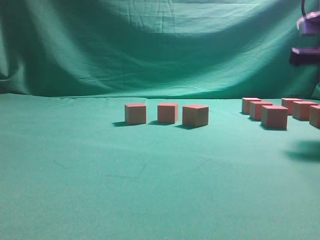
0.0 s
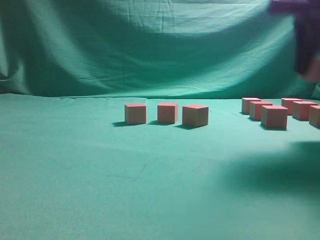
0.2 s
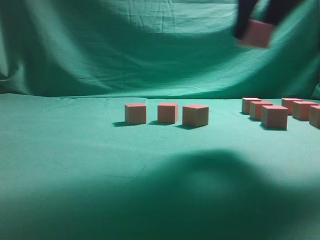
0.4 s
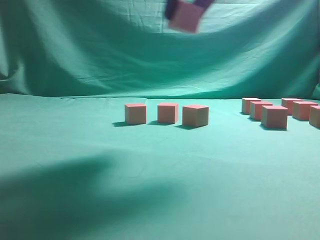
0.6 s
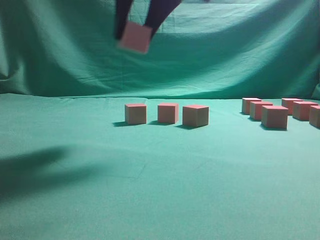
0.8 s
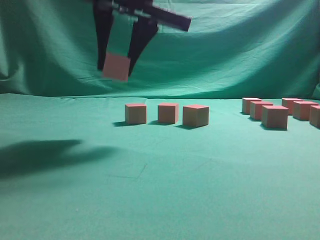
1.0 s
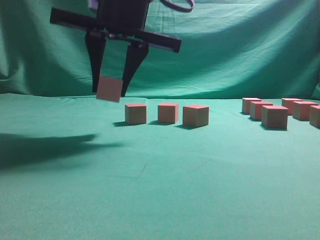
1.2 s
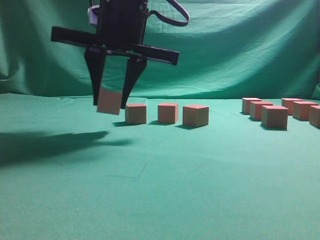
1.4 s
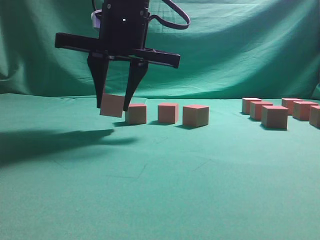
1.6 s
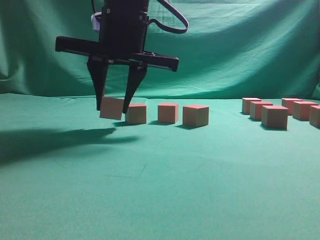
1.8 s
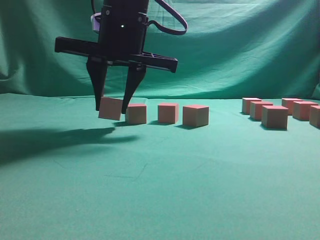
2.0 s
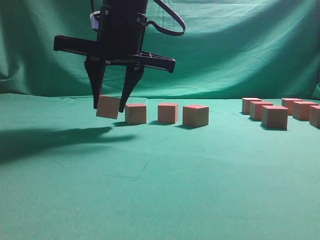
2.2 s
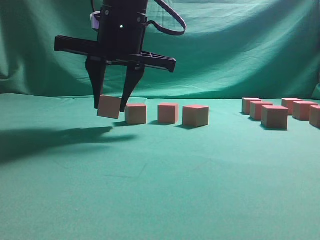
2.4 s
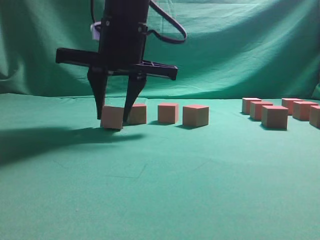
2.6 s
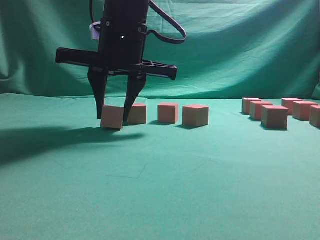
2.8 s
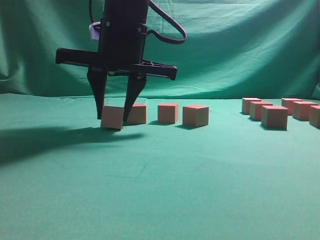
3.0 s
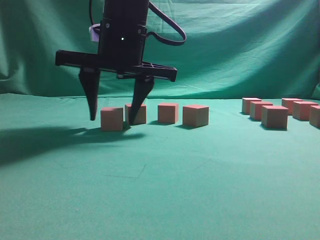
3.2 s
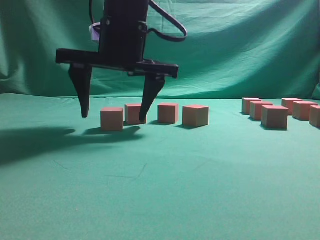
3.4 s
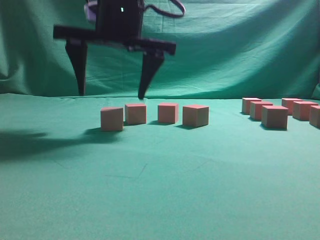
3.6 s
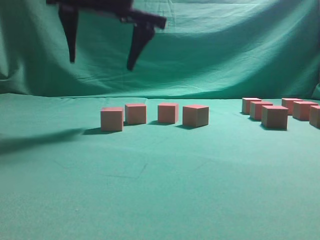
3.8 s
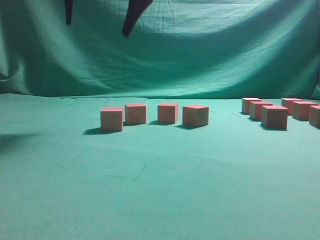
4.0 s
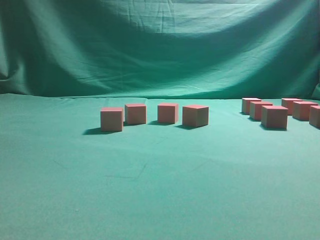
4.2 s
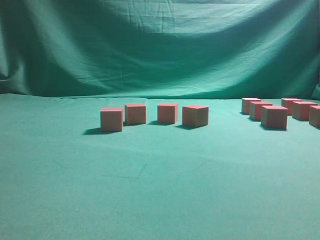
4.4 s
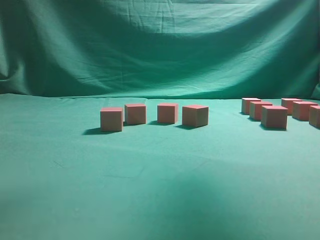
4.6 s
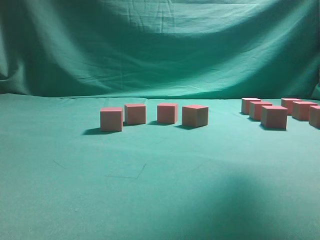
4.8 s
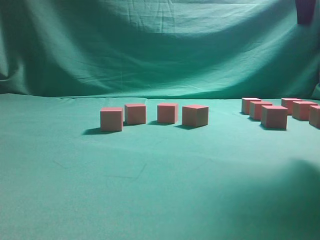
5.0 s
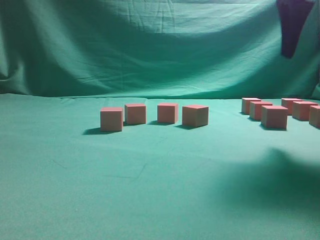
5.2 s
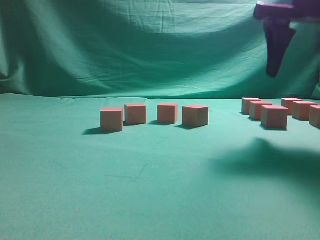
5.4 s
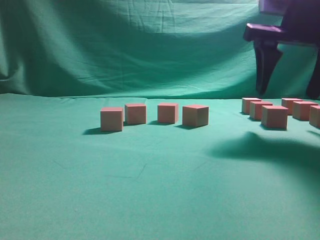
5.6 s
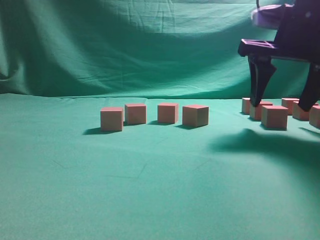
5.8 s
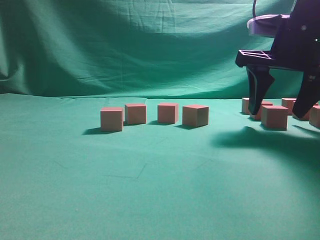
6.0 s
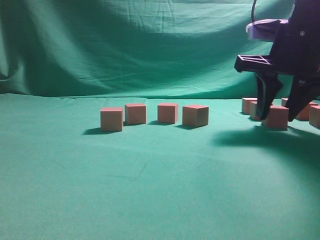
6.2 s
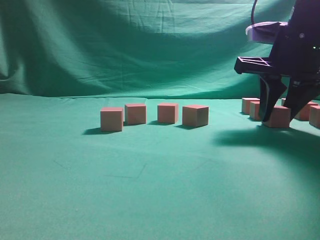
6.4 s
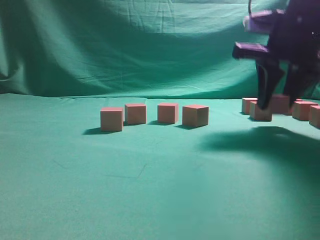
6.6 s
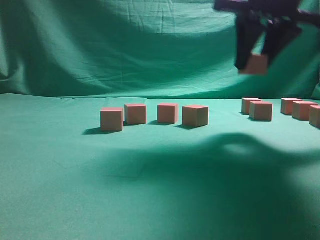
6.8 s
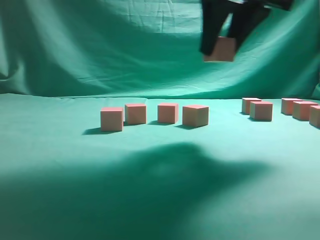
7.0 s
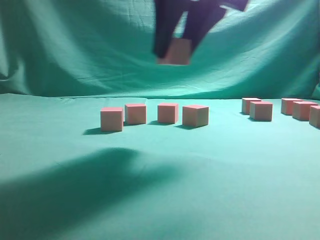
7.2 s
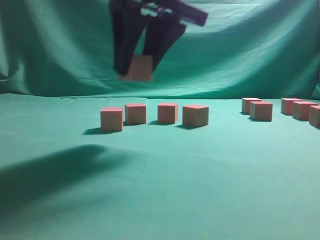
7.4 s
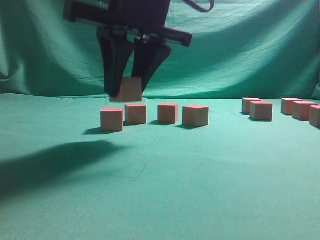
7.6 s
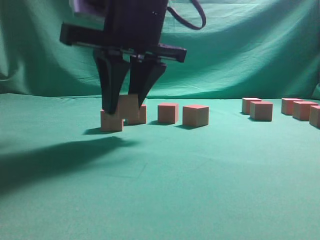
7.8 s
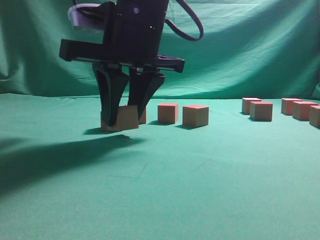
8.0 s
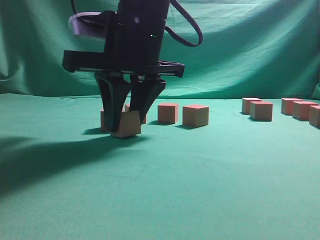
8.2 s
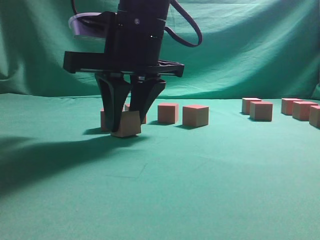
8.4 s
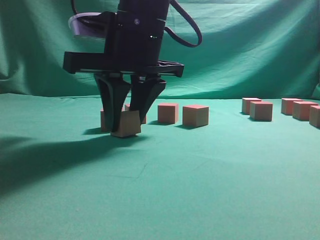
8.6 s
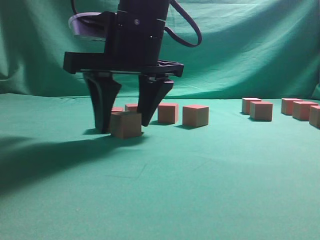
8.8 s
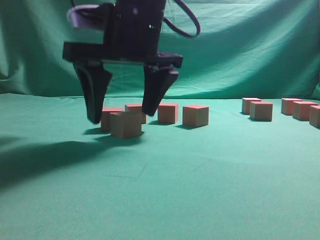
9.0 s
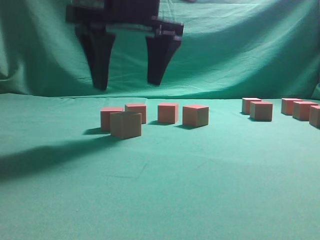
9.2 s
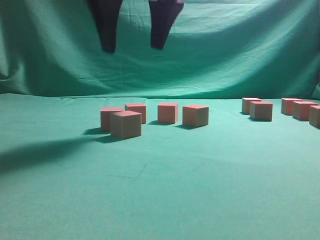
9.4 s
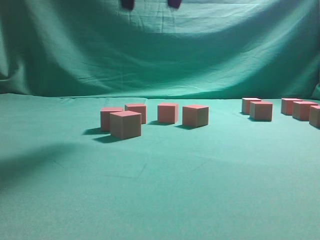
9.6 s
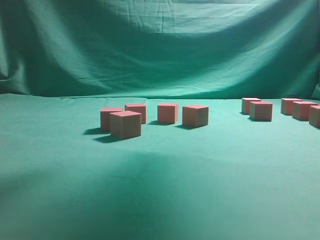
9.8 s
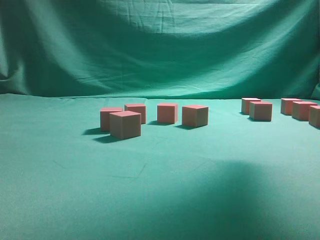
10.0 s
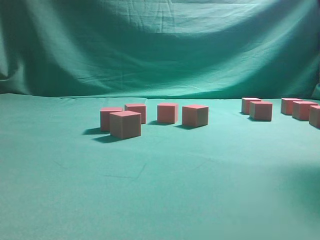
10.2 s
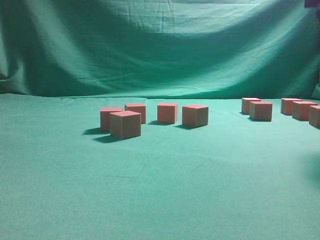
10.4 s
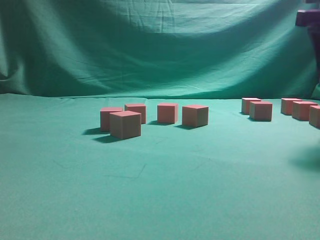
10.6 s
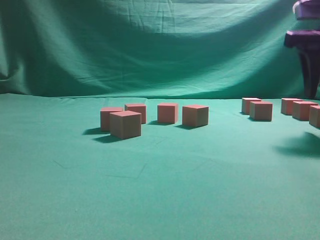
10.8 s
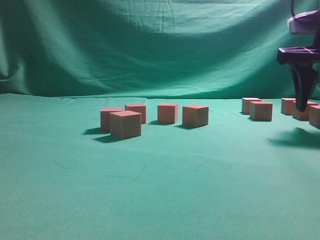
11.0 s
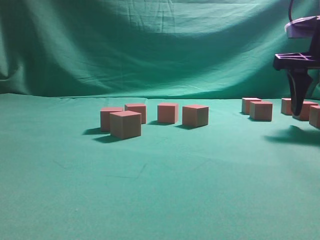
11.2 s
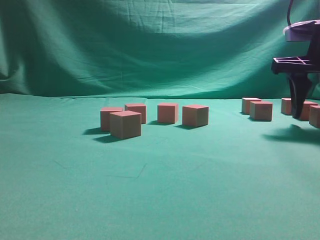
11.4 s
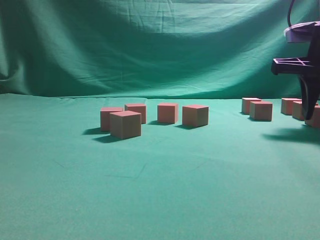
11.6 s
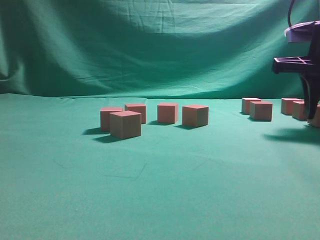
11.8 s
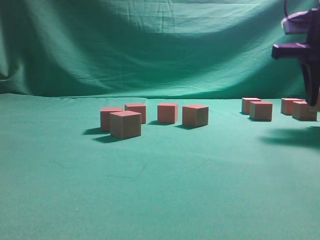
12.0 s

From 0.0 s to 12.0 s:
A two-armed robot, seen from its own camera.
Task of the whole recording: pick up the multiple cubes in two columns one by one and place them in another position on the table.
Step, from 0.6 s to 3.8 s: Place the block at the correct position to assemble the letter S.
Step, from 4.0 s to 7.0 s: Pick up the block on the table.
Step, from 7.2 s to 9.4 s: Place the block at the correct position to assemble the letter S.
From 0.0 s to 1.6 s: The right gripper moves to the left, about 30 cm.
From 1.6 s to 3.0 s: The grippers make only small movements.
From 3.0 s to 4.4 s: The right gripper heads upward and to the right, covering some 25 cm, and opens its fingers.
From 4.4 s to 6.0 s: The right gripper is displaced downward and to the right by some 25 cm.
From 6.0 s to 7.6 s: The right gripper moves to the left, about 20 cm, and closes.
From 7.6 s to 9.0 s: The right gripper opens.
From 9.0 s to 10.4 s: The right gripper heads to the right, covering about 30 cm.
From 10.4 s to 12.0 s: The right gripper is displaced downward by some 5 cm, and closes up.

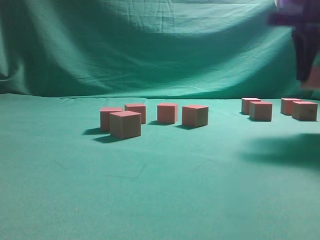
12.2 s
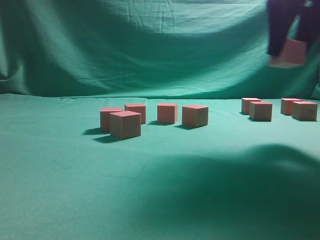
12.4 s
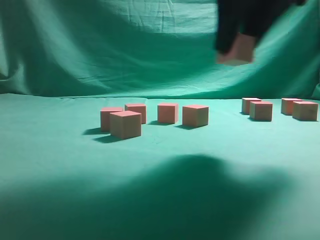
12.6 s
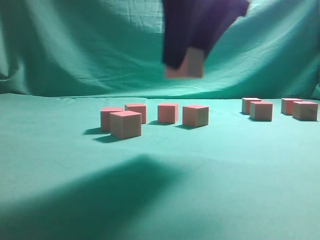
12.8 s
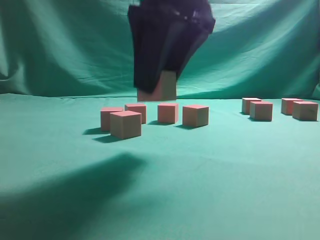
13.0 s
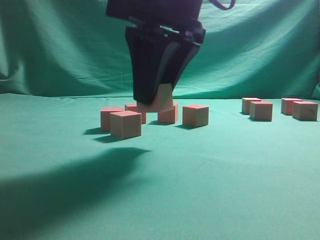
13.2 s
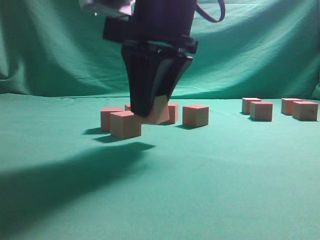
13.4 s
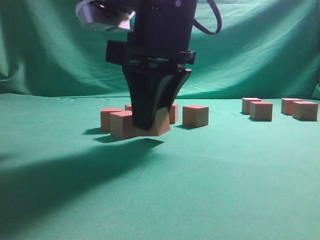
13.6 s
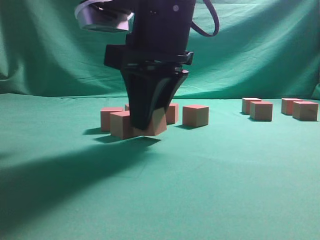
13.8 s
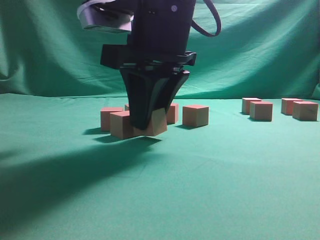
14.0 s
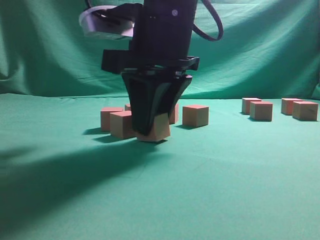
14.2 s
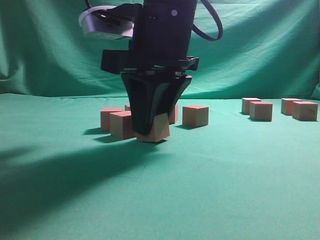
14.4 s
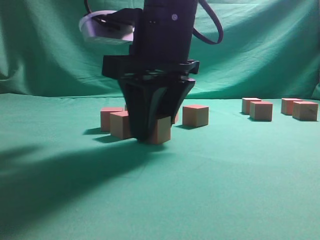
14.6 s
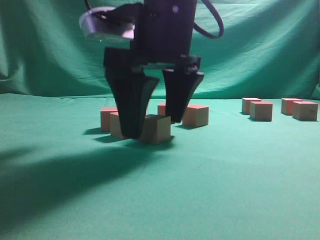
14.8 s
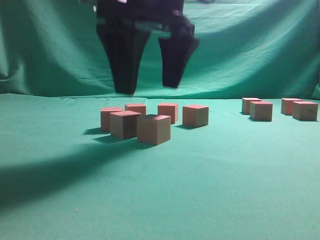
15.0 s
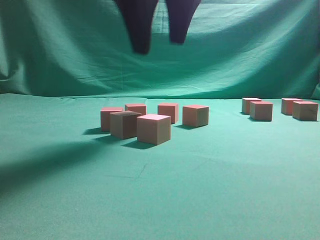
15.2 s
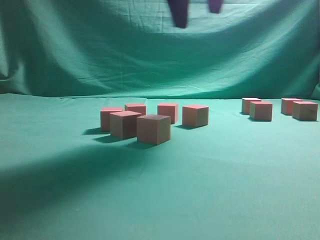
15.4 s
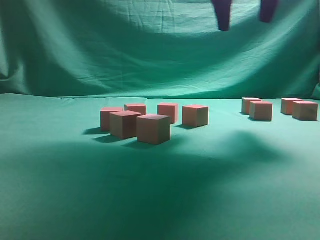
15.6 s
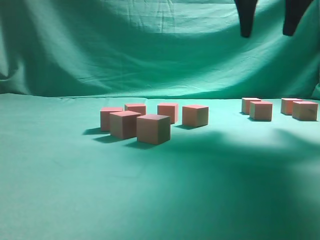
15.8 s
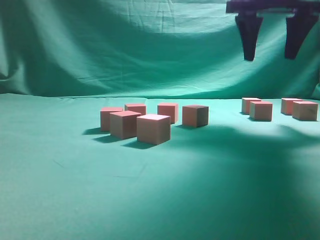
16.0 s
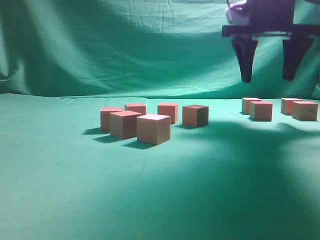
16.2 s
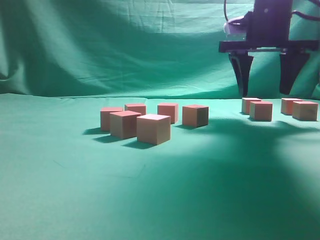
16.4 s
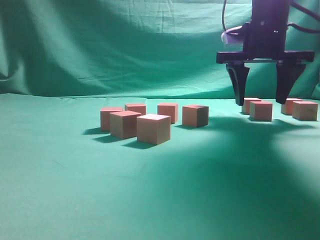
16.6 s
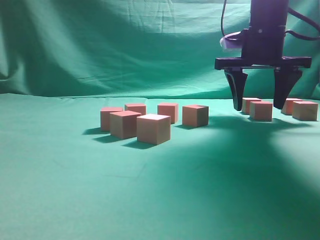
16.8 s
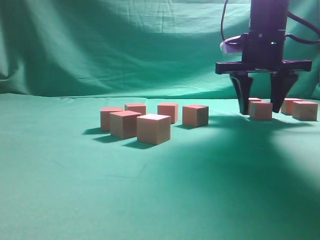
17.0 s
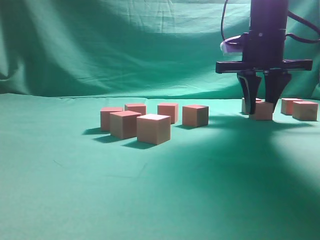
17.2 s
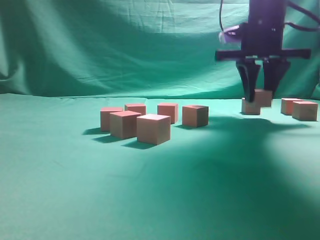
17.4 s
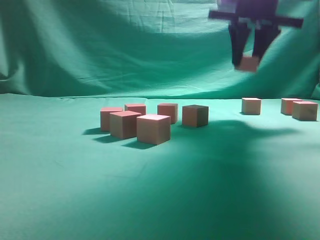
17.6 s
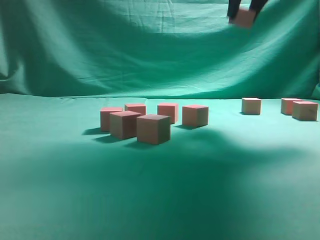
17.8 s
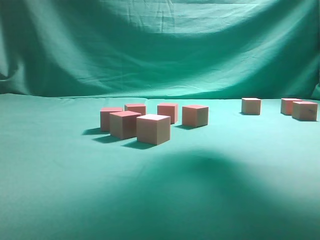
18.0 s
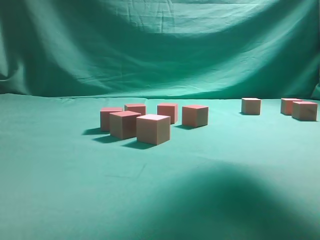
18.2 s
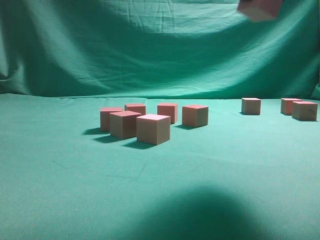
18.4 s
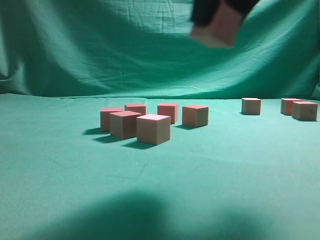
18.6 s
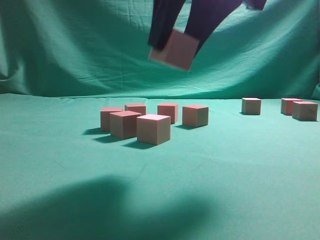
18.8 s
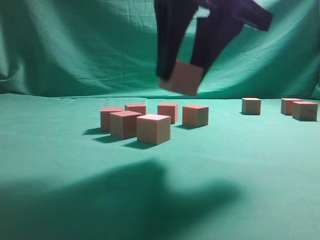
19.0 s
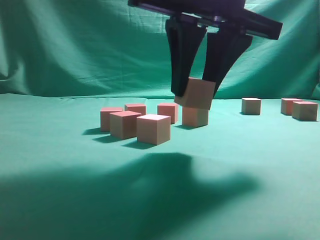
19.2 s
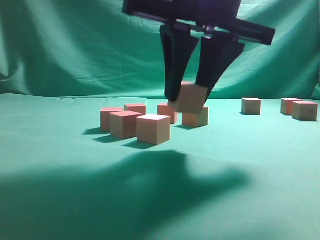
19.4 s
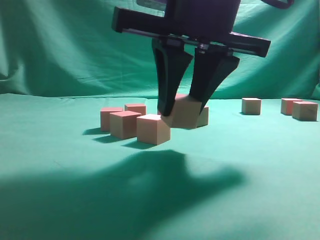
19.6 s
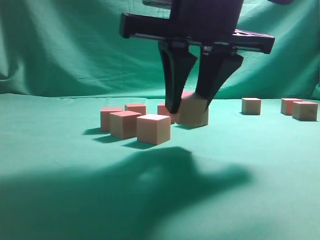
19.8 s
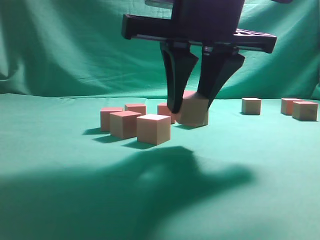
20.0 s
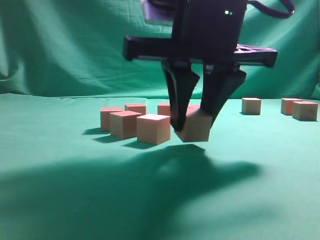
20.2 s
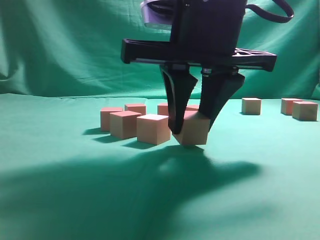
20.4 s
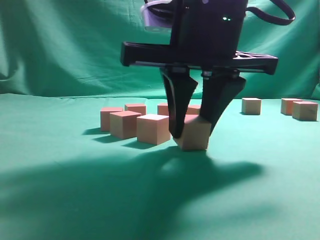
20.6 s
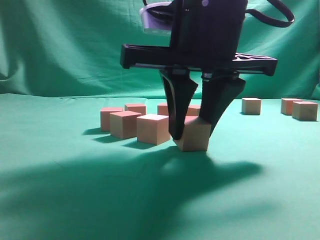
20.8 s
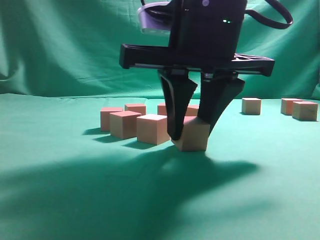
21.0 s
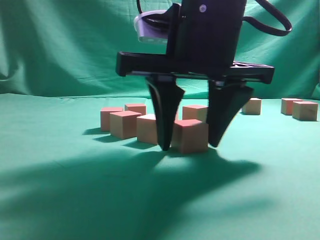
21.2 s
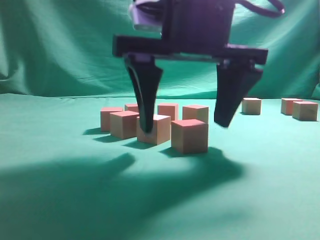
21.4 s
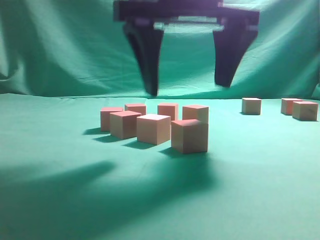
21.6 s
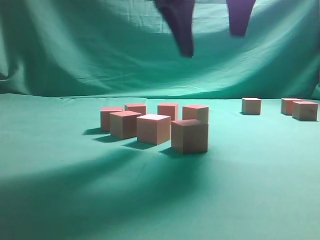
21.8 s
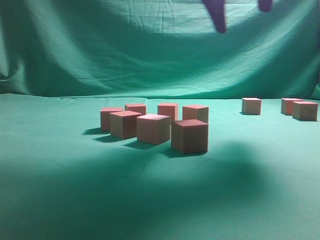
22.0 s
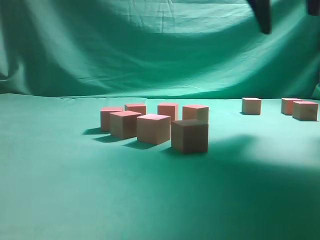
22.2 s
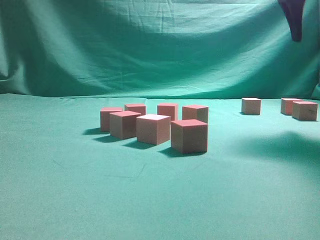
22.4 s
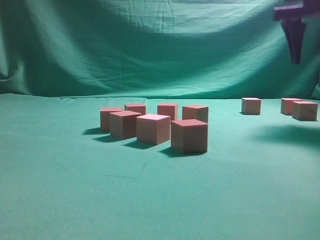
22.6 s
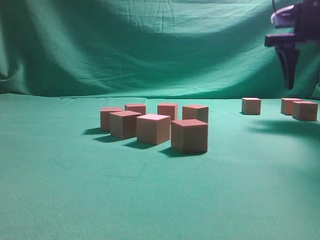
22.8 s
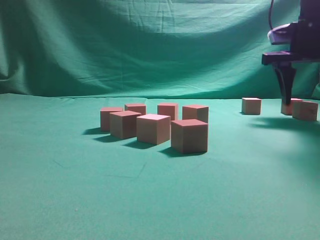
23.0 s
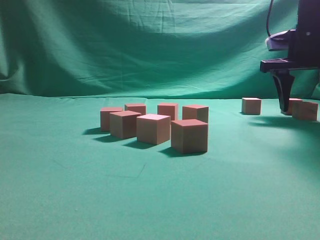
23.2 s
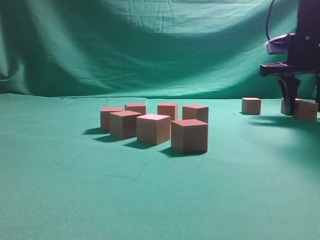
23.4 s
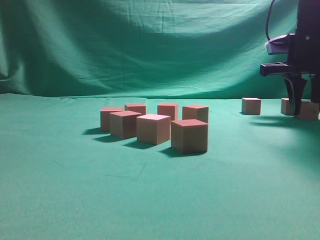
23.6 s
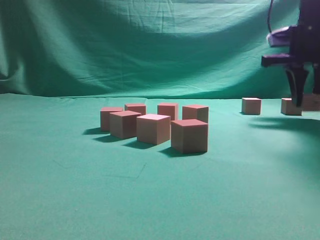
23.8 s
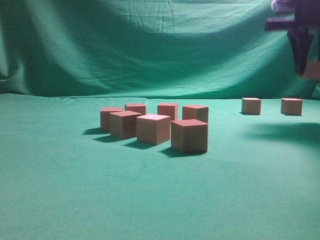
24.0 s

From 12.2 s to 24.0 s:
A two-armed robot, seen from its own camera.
Task of the whole recording: pick up the multiple cubes in two columns one by one and place them in another position on the table.
Step, from 12.6 s to 13.6 s: Place the block at the correct position to assemble the letter S.
Step, from 13.8 s to 18.0 s: Pick up the block on the table.
Step, from 18.2 s to 21.8 s: Place the block at the correct position to assemble the letter S.
From 12.2 s to 13.6 s: The right gripper goes some 20 cm to the left.
From 13.6 s to 15.2 s: The right gripper travels upward by approximately 10 cm, and opens its fingers.
From 15.2 s to 16.6 s: The right gripper travels to the right, forward and downward by approximately 20 cm.
From 16.6 s to 18.2 s: The right gripper goes some 20 cm upward and backward, and closes up.
From 18.2 s to 19.6 s: The right gripper heads downward, to the left and backward, covering roughly 20 cm.
From 21.0 s to 22.6 s: The right gripper shifts some 25 cm to the right, forward and upward, and opens up.
From 22.6 s to 24.0 s: The right gripper moves some 10 cm downward and comes back, and closes.
